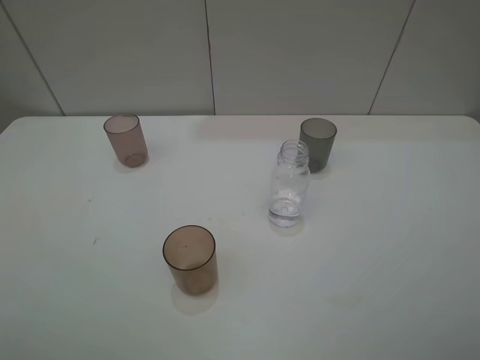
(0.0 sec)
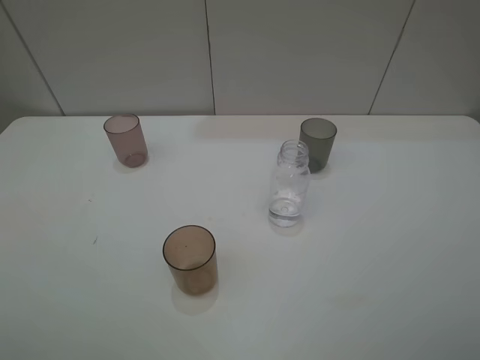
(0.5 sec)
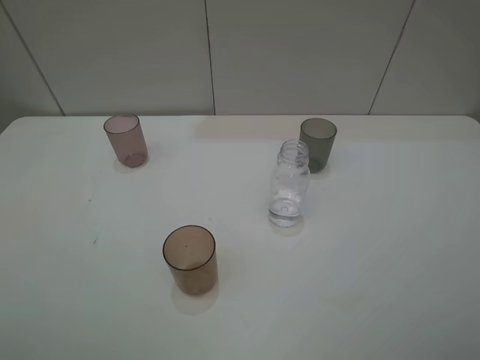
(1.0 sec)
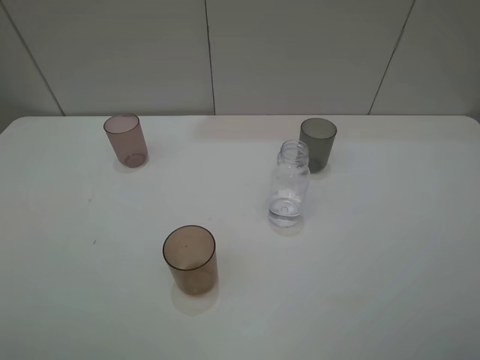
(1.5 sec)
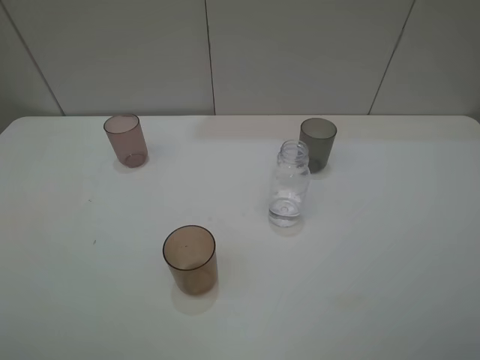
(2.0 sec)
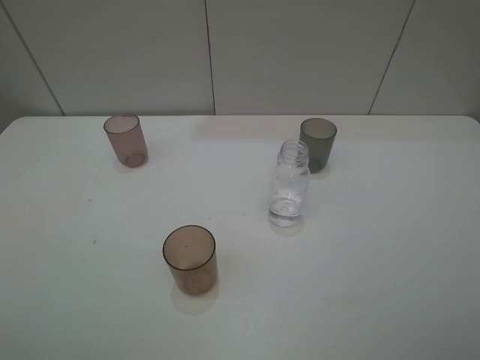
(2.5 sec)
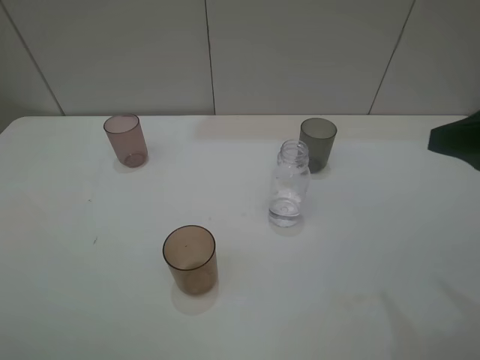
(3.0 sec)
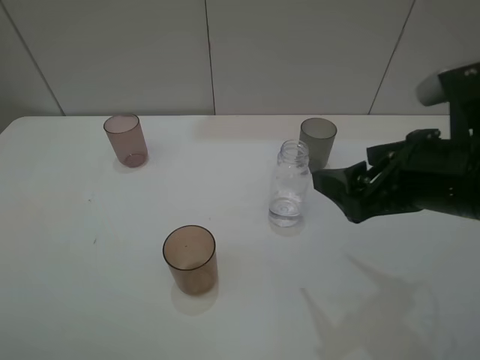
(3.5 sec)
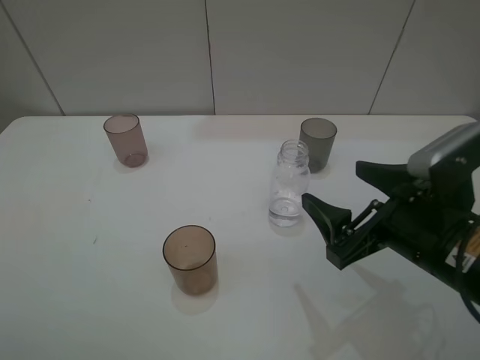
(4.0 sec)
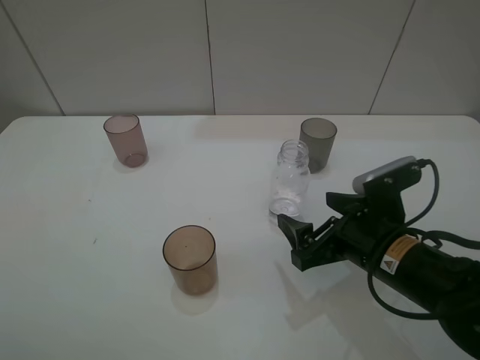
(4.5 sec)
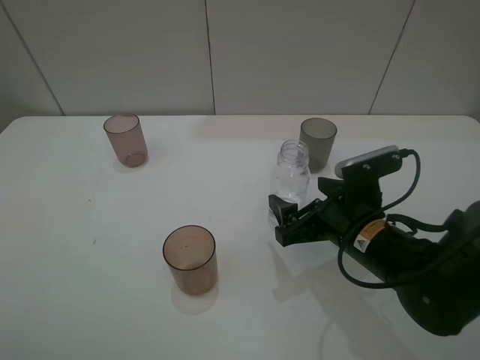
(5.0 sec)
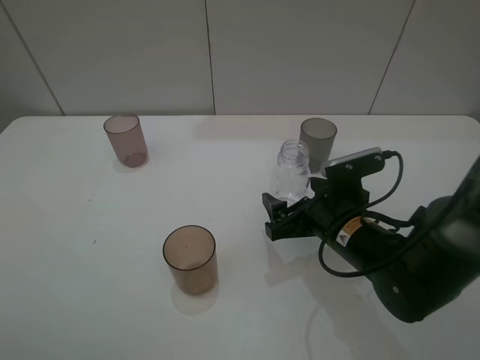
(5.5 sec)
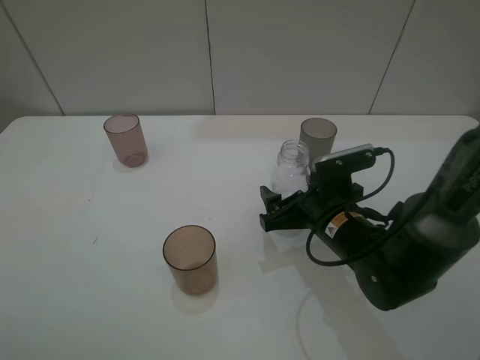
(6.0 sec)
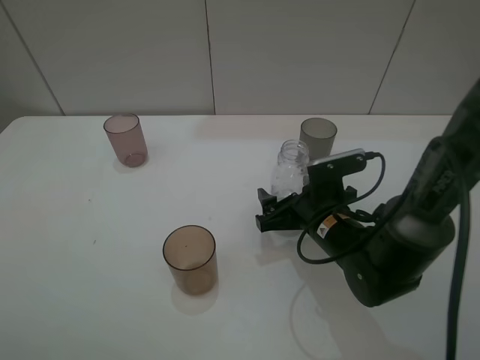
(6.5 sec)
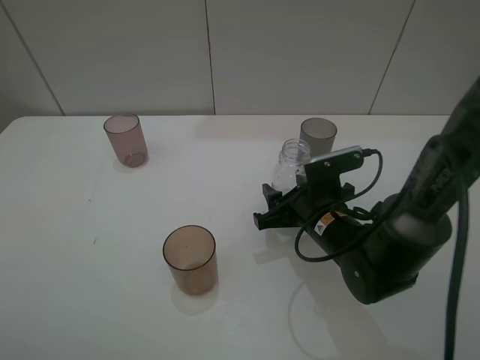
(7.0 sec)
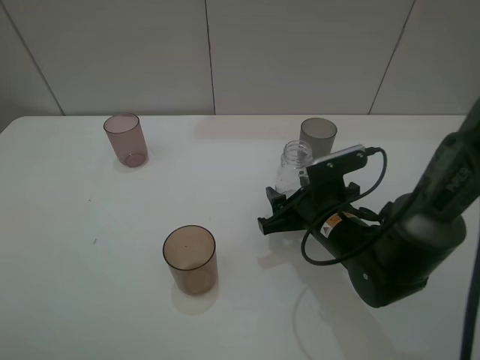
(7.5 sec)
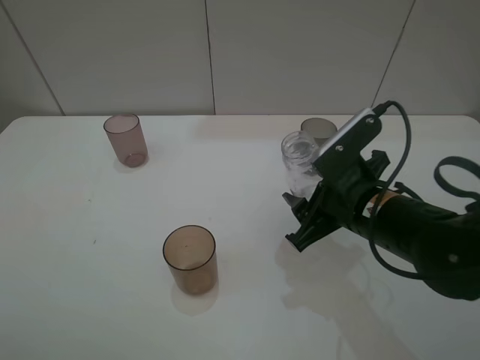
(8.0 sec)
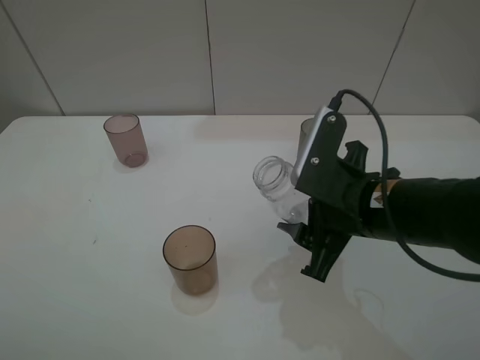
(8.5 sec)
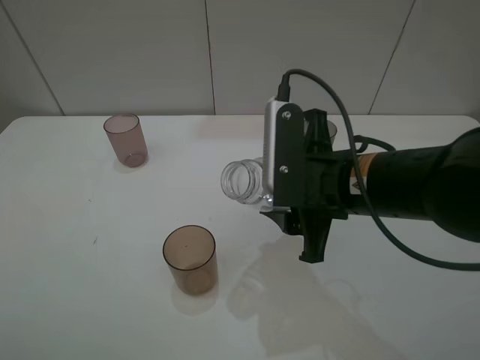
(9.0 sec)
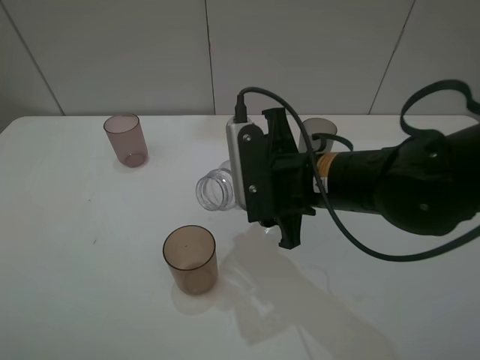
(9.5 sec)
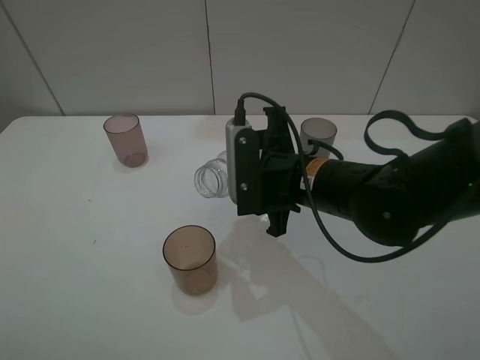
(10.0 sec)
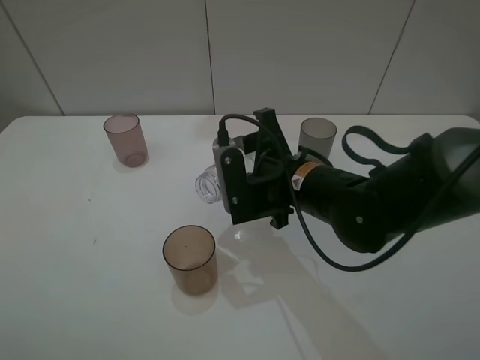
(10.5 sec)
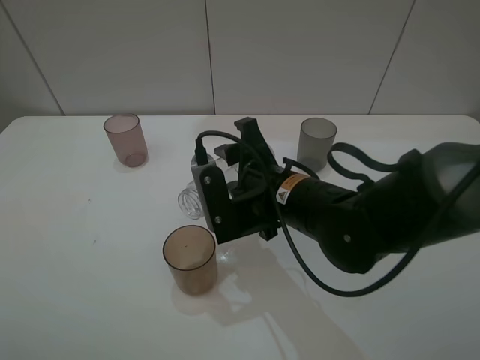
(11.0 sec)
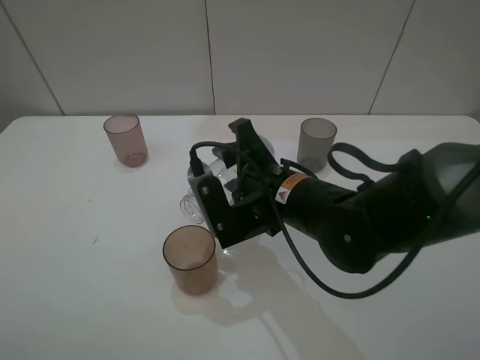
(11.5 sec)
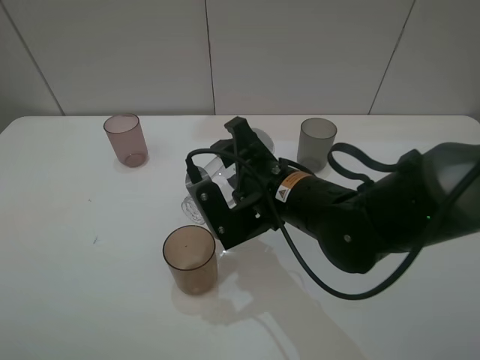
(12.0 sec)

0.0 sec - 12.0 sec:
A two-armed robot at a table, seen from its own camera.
Task of the whole recording: pick up the bottle filled with water and pour water into the middle cup of the three cups.
Step, 0.0 sec - 7.0 sec: Grasp the transparent bottle with the right gripper.
0.0 sec - 2.0 sec: Both grippers stay about where they are.
2.0 sec - 4.0 sec: The right gripper shifts roughly 25 cm forward, downward and to the left.
4.0 sec - 6.0 sec: The right gripper moves downward, forward and to the left, roughly 15 cm.
6.0 sec - 8.0 sec: The right gripper goes some 5 cm upward, and closes.
8.0 sec - 10.0 sec: The right gripper is displaced to the left by approximately 5 cm.

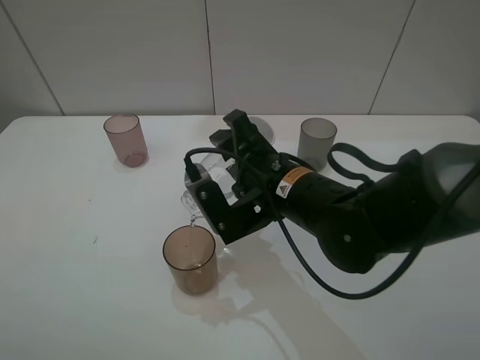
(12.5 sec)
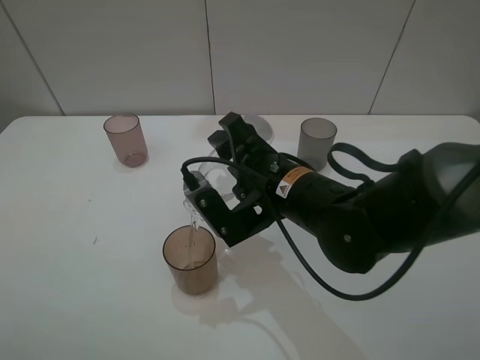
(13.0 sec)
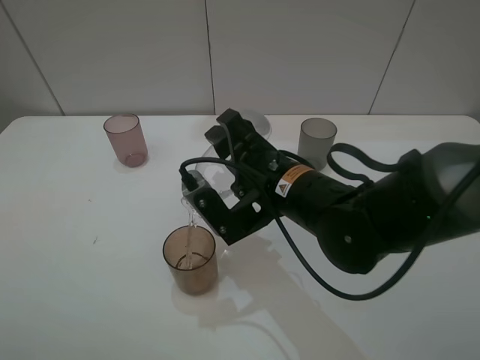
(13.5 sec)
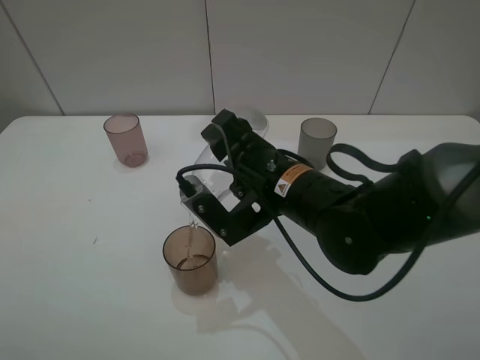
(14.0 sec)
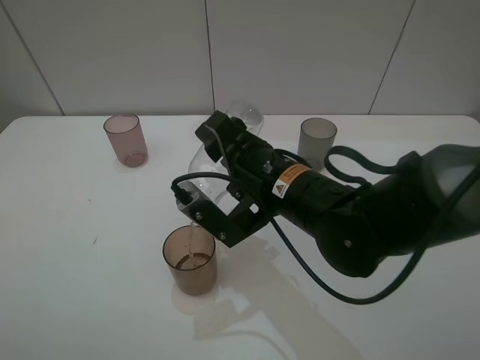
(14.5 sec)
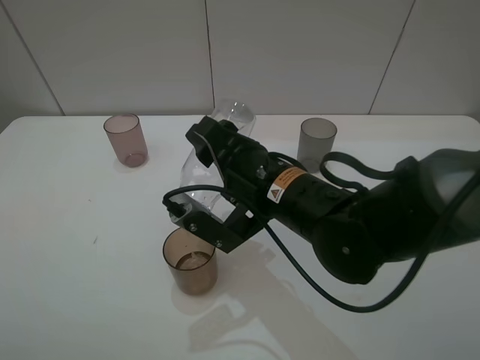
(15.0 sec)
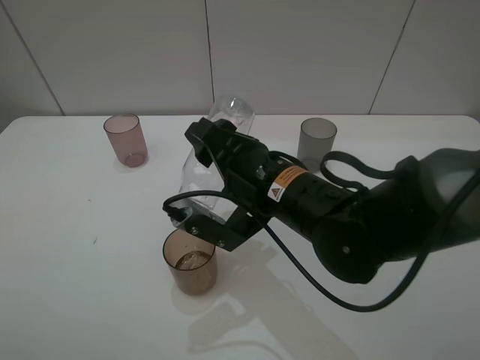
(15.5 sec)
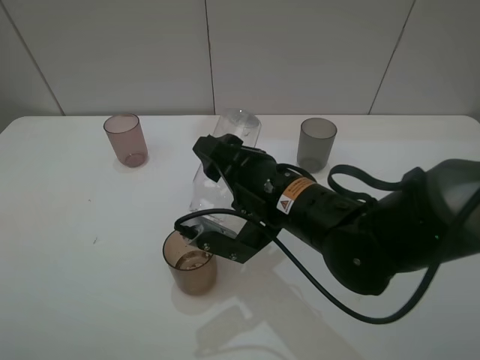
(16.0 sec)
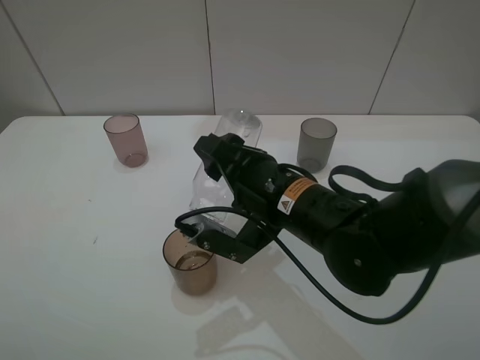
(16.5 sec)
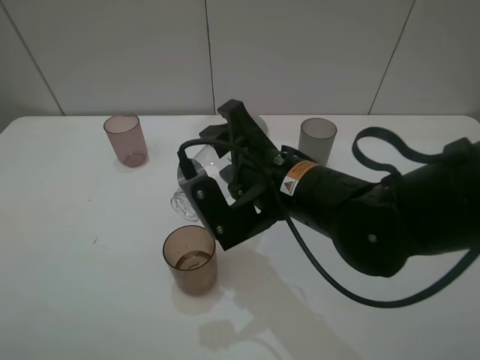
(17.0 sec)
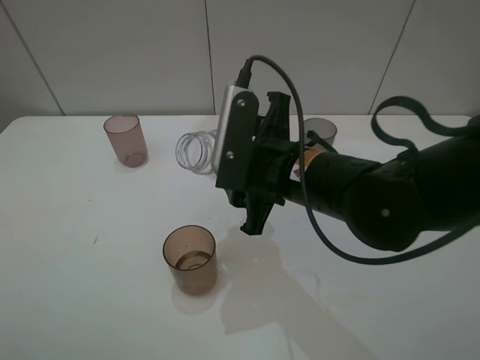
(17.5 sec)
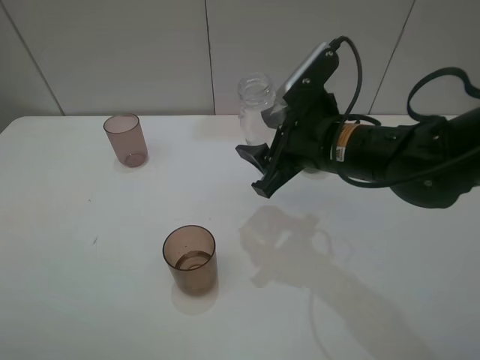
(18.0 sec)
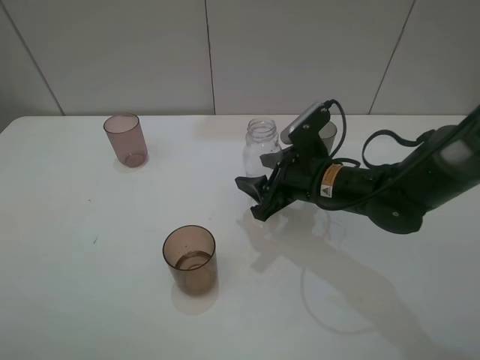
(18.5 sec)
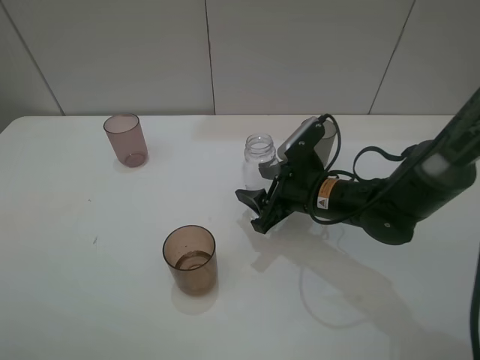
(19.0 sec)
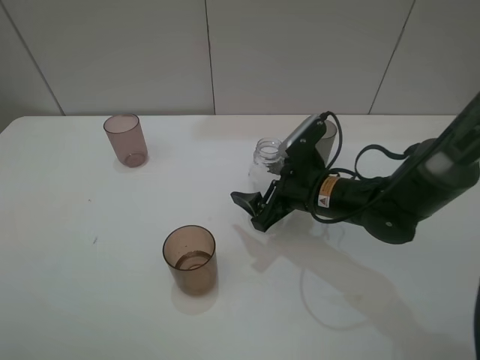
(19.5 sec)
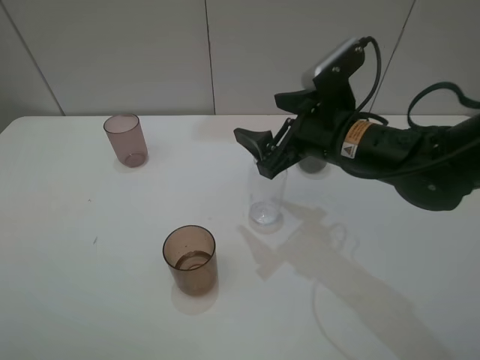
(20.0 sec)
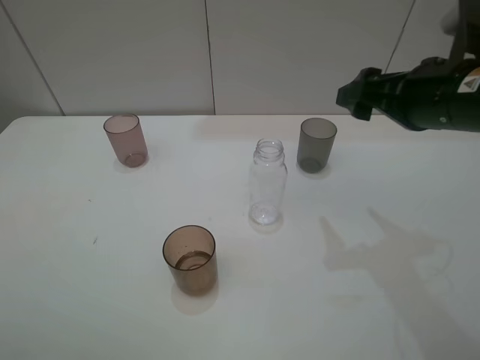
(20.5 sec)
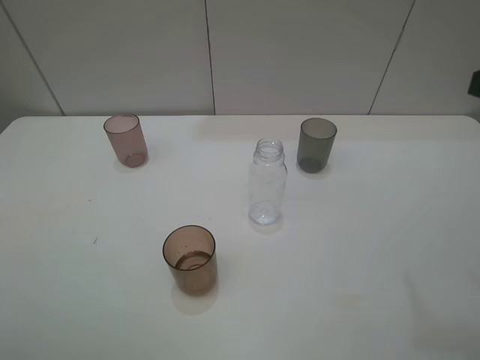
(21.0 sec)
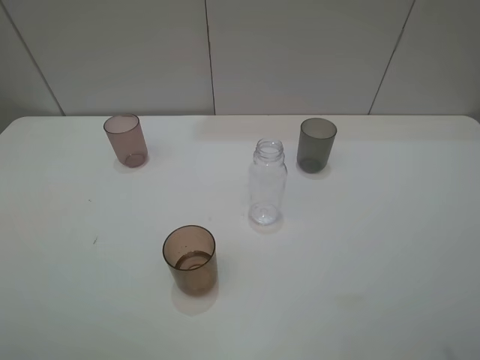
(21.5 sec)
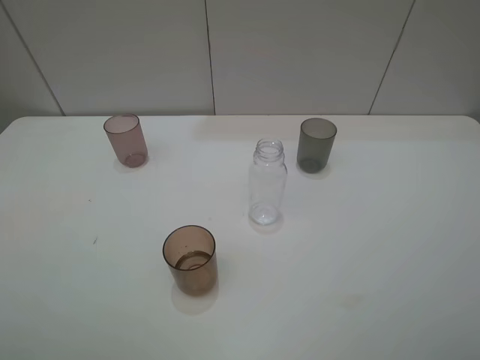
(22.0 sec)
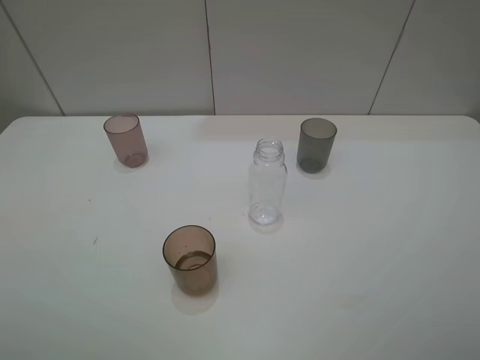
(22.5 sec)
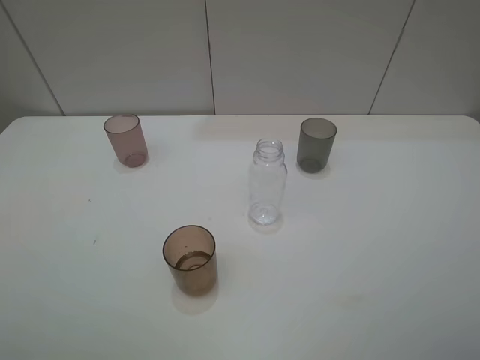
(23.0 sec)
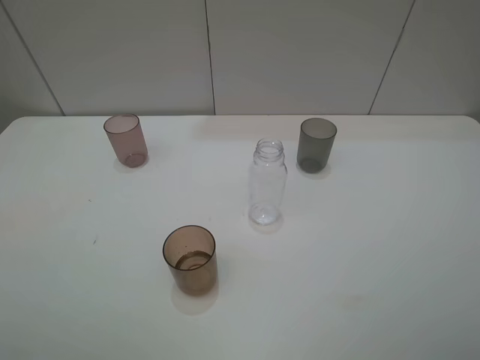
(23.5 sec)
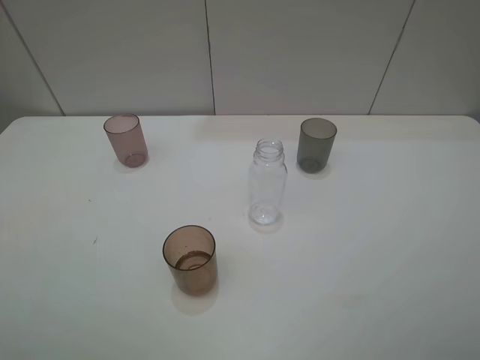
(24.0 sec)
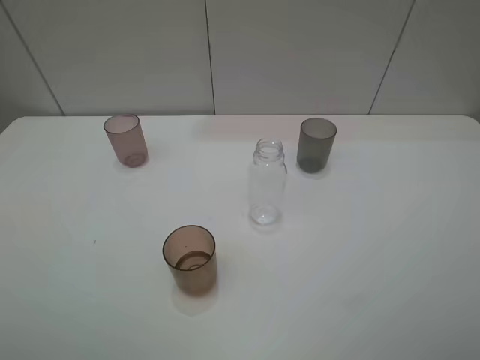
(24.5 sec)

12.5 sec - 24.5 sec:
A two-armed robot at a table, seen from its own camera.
Task of the whole recording: pick up the bottle filled with water and pour water into the middle cup of the three cups.
Step, 12.5 sec - 17.0 sec: Pour water from transparent bottle tobrown cup with the right gripper.
Step, 17.5 sec - 20.0 sec: Place the transparent bottle with the right gripper.
12.5 sec - 14.5 sec: The grippers make only small movements.
14.5 sec - 16.5 sec: There are only small adjustments of the grippers.
16.5 sec - 18.5 sec: The right gripper goes roughly 10 cm to the right, forward and downward.
18.5 sec - 20.5 sec: The right gripper heads upward and to the right, covering about 20 cm, and opens its fingers.
20.5 sec - 22.5 sec: The right gripper travels backward by roughly 25 cm.
22.5 sec - 24.5 sec: Both grippers stay put.

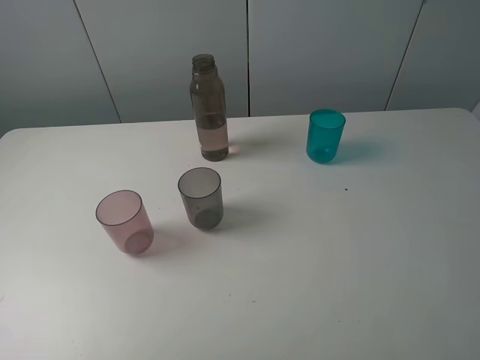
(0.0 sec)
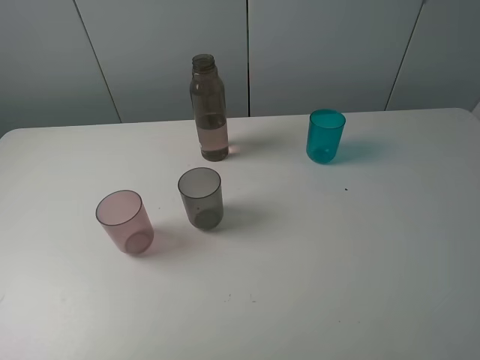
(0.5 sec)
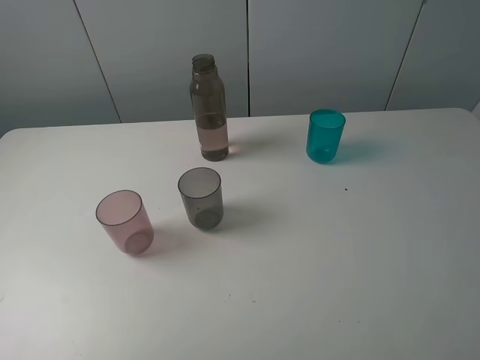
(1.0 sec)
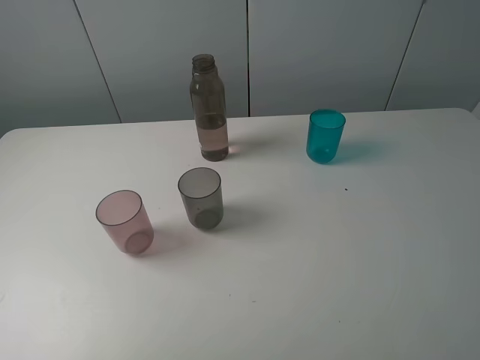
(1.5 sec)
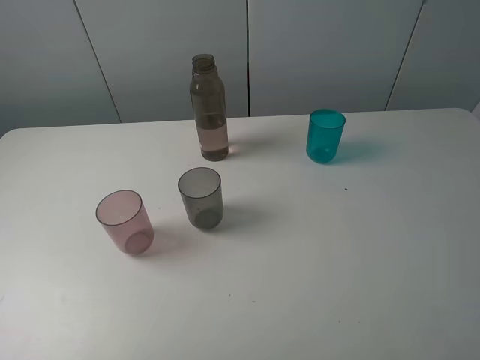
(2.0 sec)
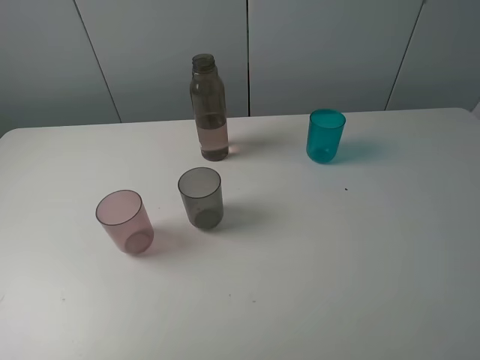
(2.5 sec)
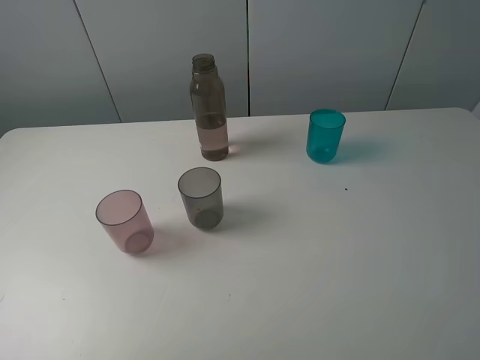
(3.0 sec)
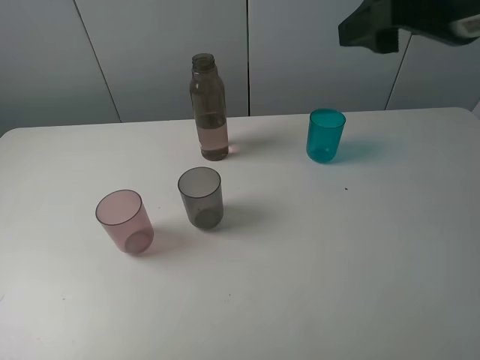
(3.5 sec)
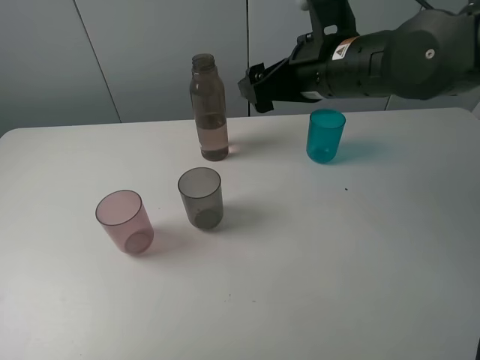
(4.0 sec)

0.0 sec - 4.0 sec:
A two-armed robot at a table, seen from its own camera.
Task of the whole recording: pick up the bottle filled with water and pour water into the middle cup of the three cups.
0.0 sec - 2.0 sec: Both grippers stay about where they are.
2.0 sec - 4.0 sec: The right gripper heads forward and to the left, covering approximately 35 cm.
